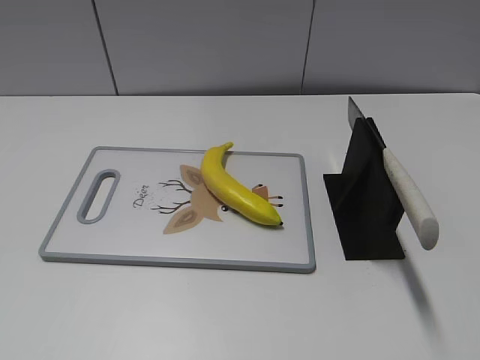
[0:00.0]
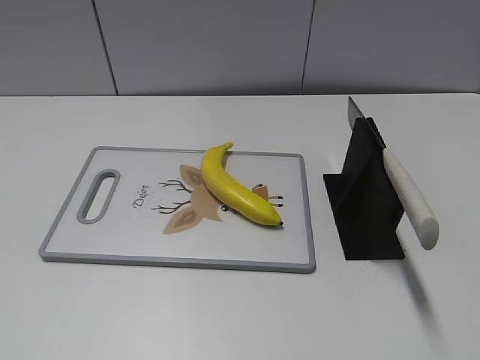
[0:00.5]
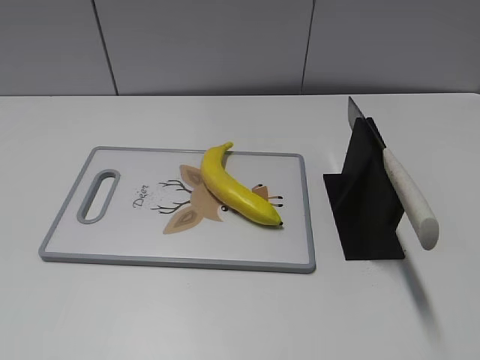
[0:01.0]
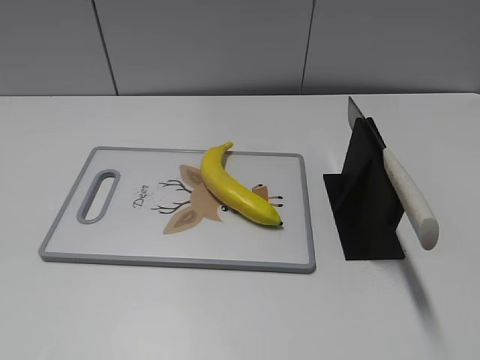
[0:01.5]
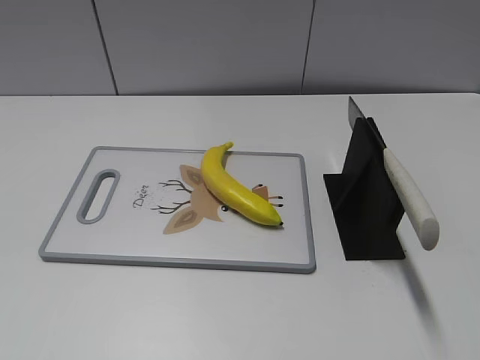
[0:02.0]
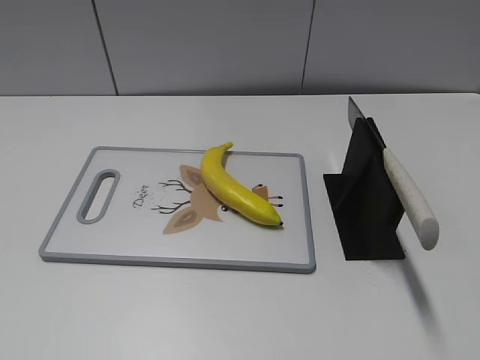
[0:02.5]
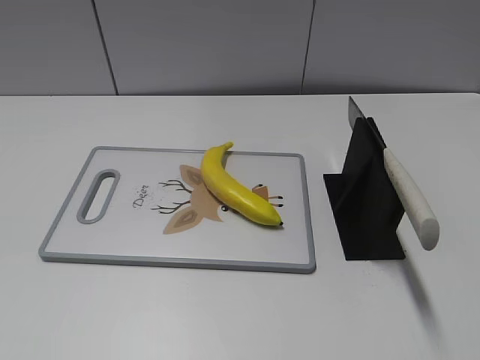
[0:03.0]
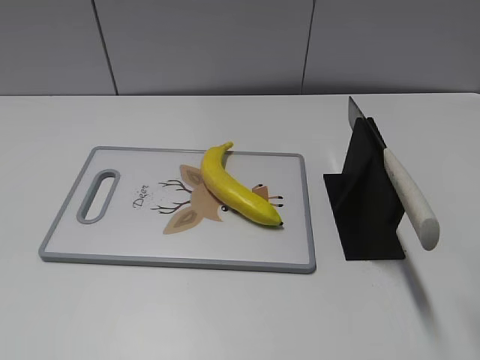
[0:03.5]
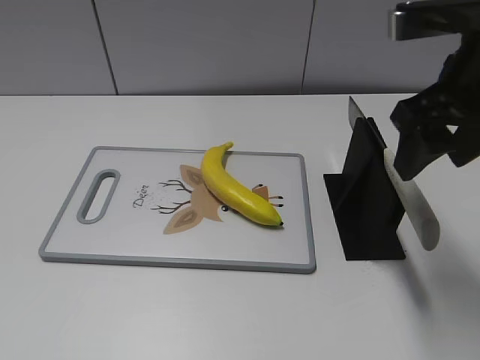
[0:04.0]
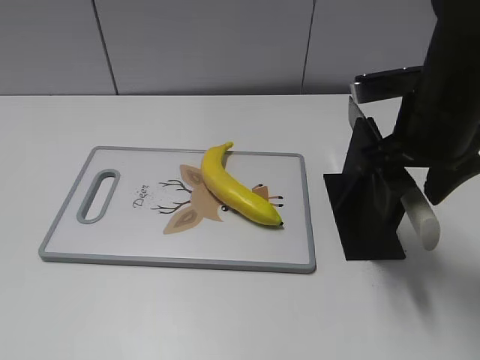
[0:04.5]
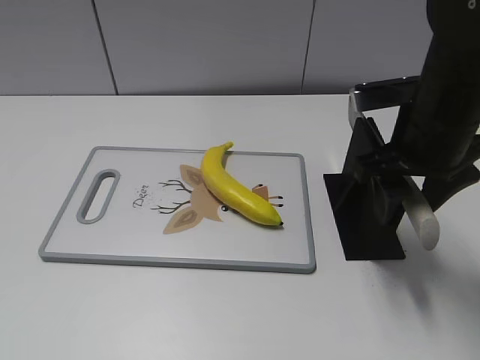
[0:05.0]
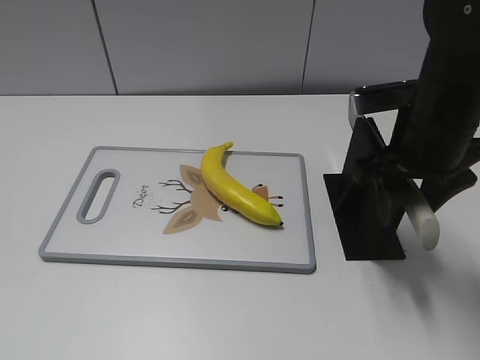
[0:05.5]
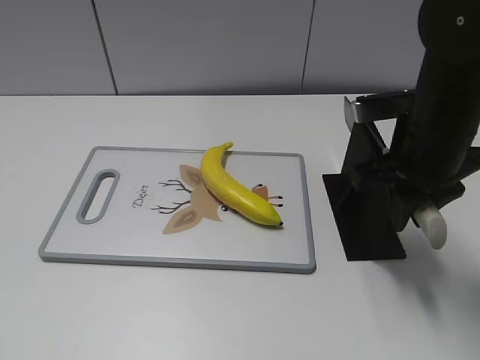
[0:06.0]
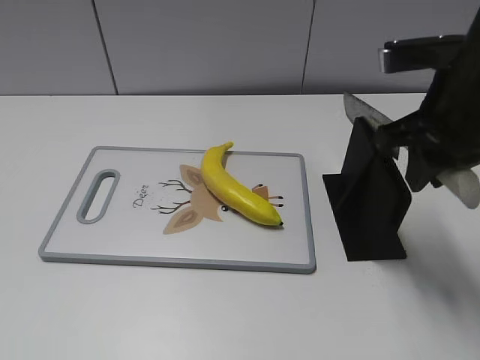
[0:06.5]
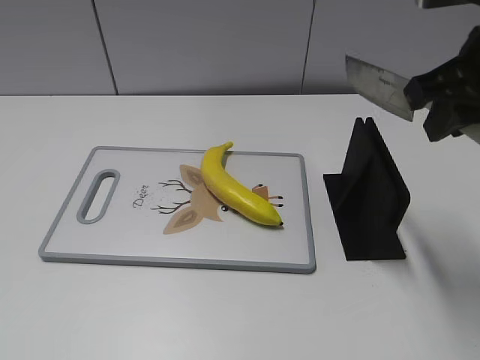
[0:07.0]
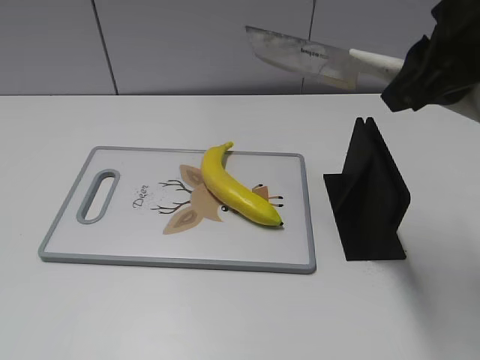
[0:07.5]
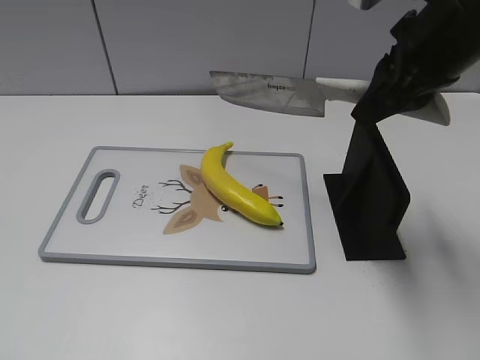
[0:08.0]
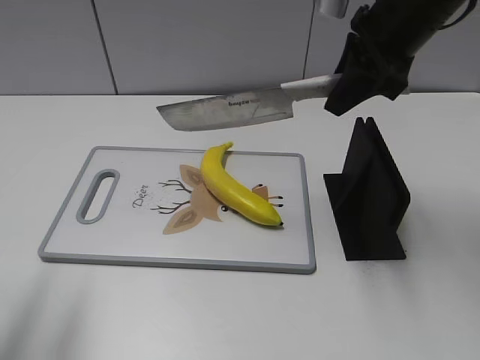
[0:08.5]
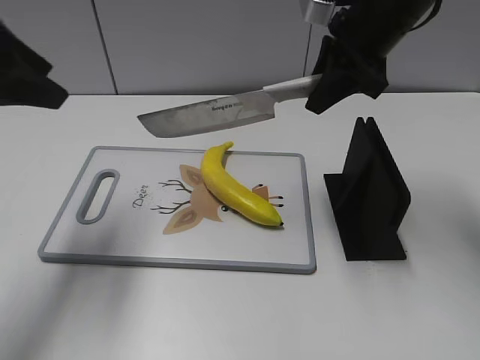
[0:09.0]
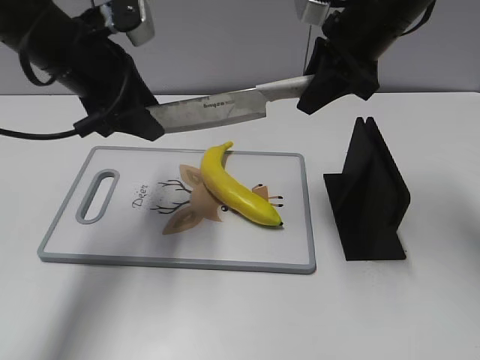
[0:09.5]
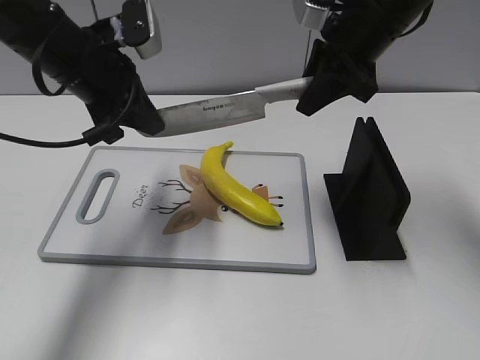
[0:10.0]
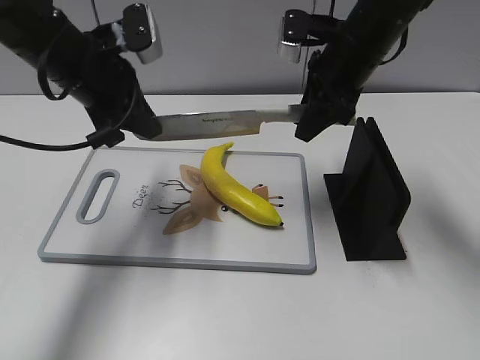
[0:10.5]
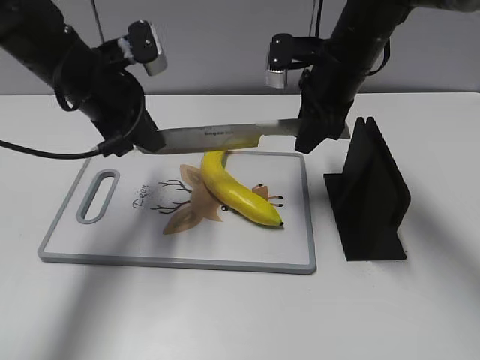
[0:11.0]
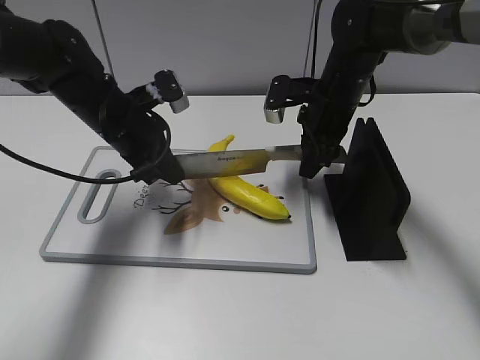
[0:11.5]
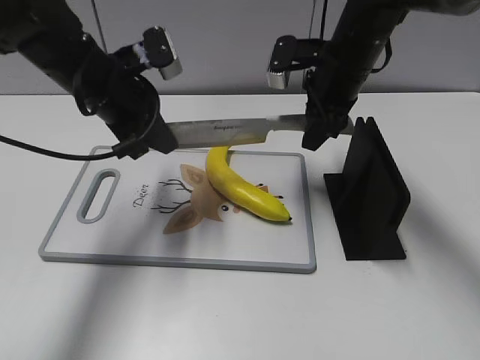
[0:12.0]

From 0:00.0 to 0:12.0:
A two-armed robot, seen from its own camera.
Task of the whole recording: cut plastic banana.
Step, from 0:00.0 to 0:07.5: Grab the knife handle with your right hand.
From 0:02.0 to 0:04.0: The right gripper goes some 25 cm forward.
From 0:04.0 to 0:06.0: The right gripper is displaced downward by about 10 cm, and closes its fingers.
From 0:06.0 to 0:08.0: The right gripper is displaced upward by about 10 cm.
From 0:08.0 to 0:10.0: The right gripper shifts some 10 cm forward; the left gripper moves forward and to the right, about 35 cm, and closes.
From 0:10.0 to 0:12.0: The right gripper moves downward, roughly 5 cm.

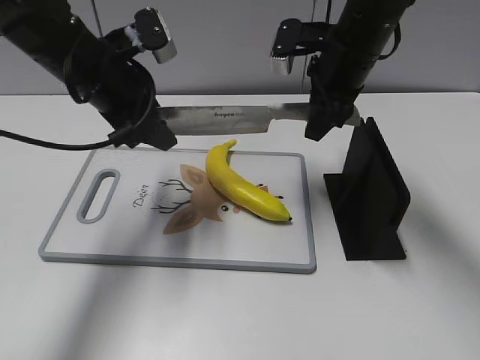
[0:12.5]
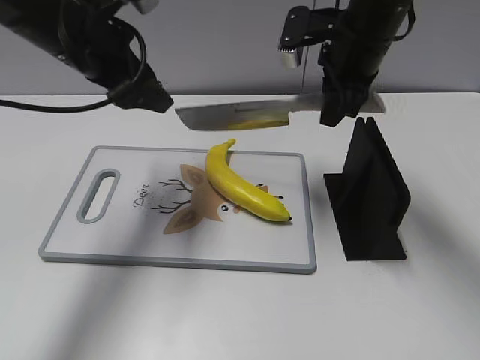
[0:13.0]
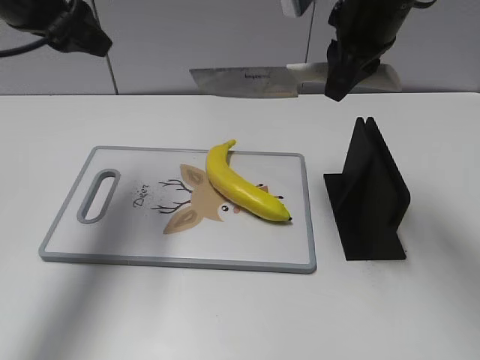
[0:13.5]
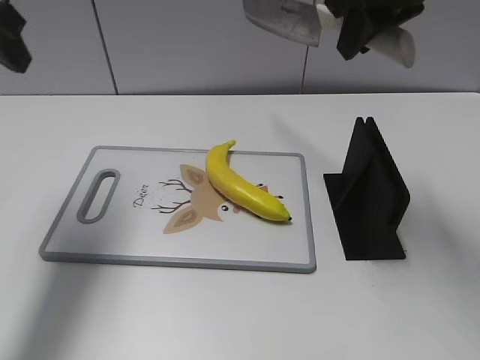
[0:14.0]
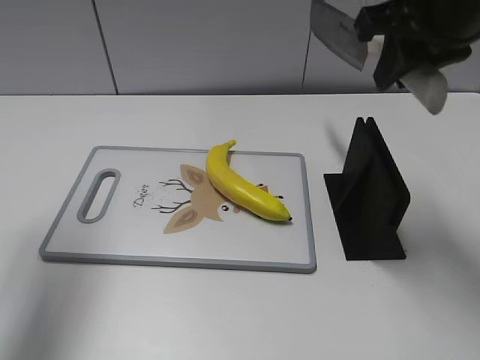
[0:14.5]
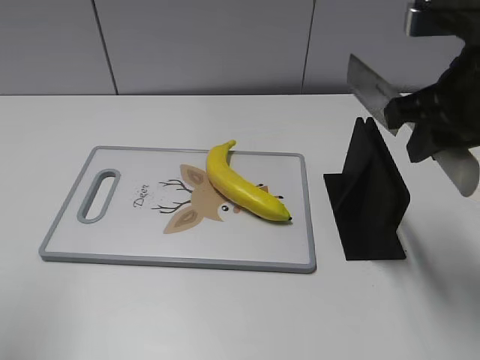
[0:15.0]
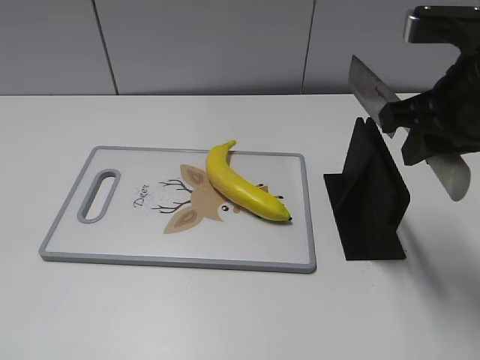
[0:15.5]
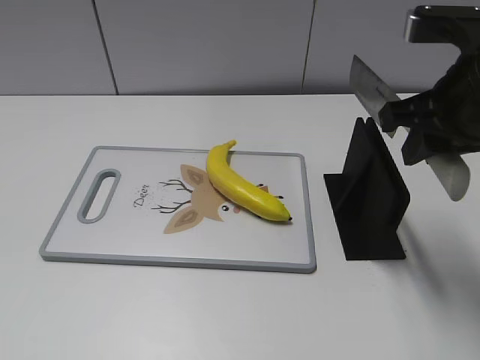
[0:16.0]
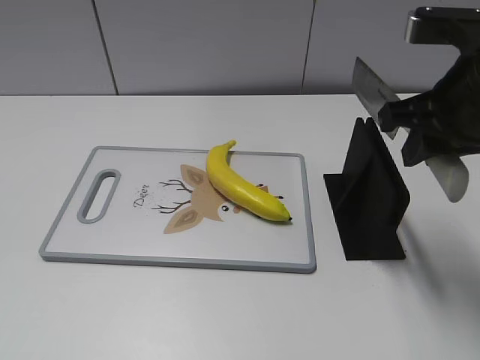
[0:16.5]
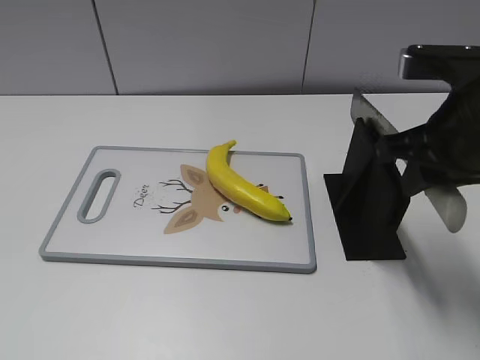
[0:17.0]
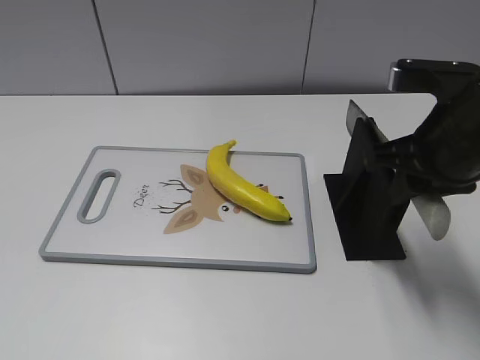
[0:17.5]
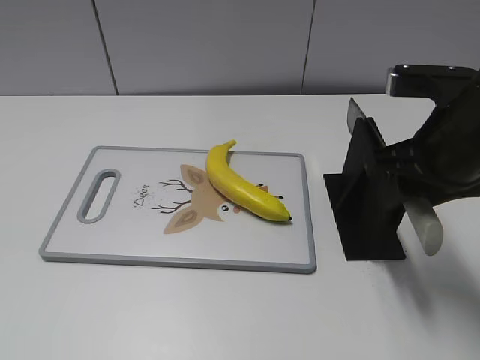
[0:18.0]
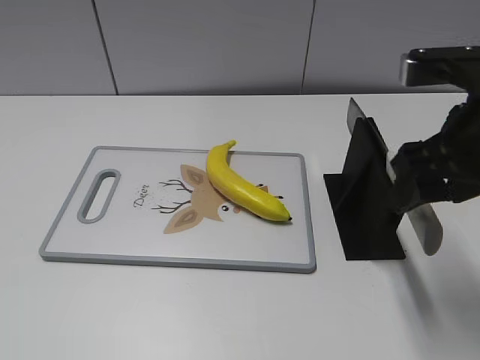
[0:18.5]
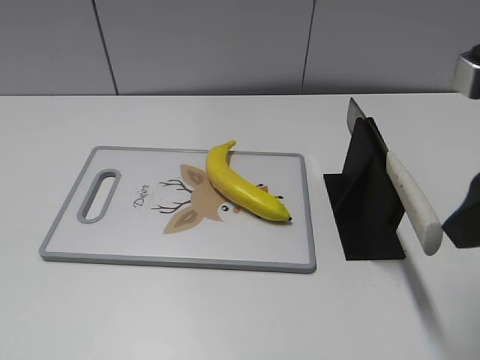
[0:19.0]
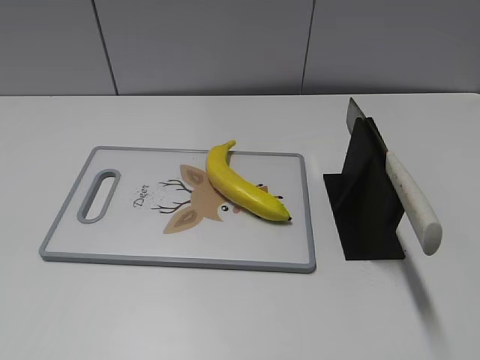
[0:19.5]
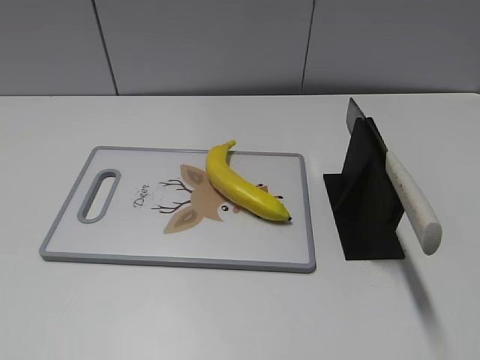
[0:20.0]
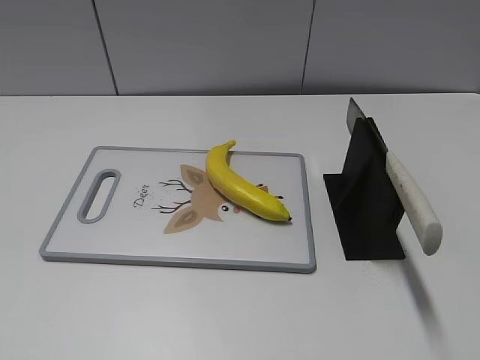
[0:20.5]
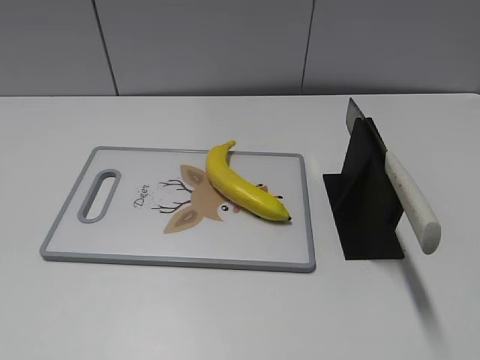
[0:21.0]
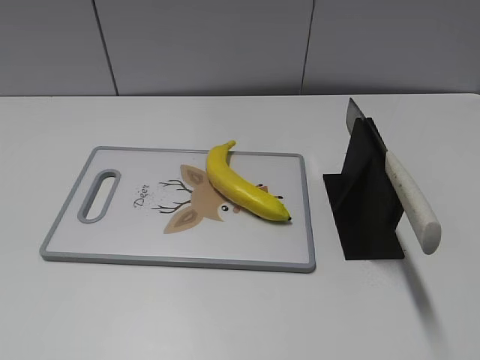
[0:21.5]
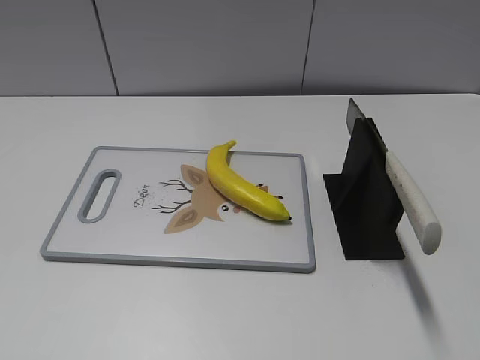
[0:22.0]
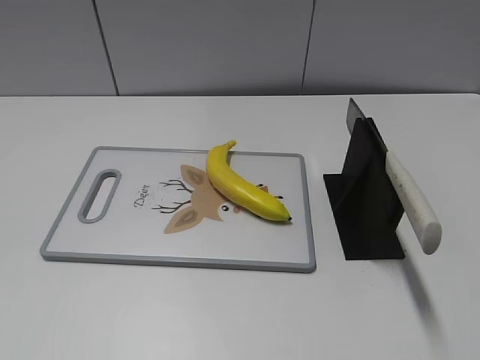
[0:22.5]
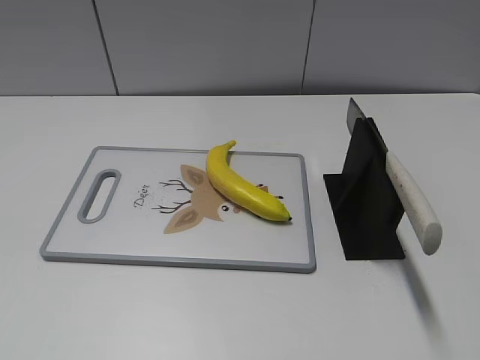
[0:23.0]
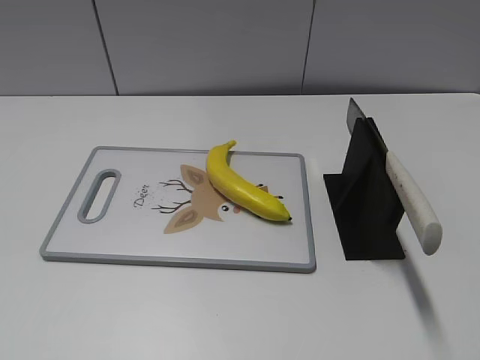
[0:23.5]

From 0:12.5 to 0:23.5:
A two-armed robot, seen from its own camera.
Task of the whole recording: cut plastic banana.
Step, from 0:12.5 to 0:14.5: Cut the banana with your right hand.
Step, from 0:15.5 to 0:22.5: Place the knife on the storage rack with your right hand.
From 0:12.5 to 0:14.5: The right gripper heads upward and backward, covering some 15 cm. Meanwhile the left gripper goes approximately 20 cm upward, to the left and backward.
From 0:14.5 to 0:16.0: The right gripper goes some 5 cm downward; the left gripper heads backward, covering approximately 25 cm.
From 0:16.0 to 0:18.0: The right gripper opens up.
From 0:18.0 to 0:20.0: The right gripper moves backward, about 25 cm, and opens.
